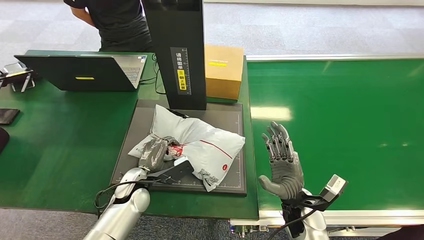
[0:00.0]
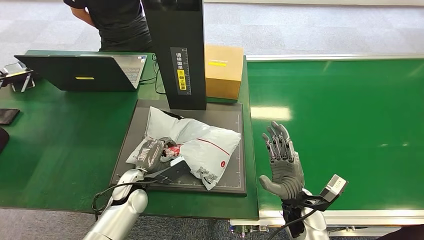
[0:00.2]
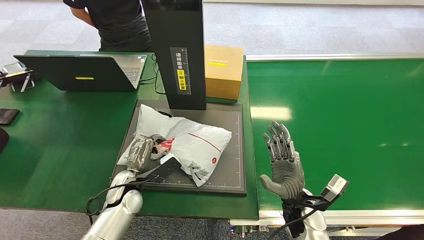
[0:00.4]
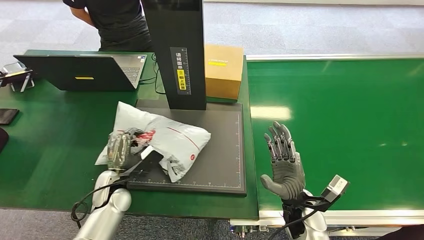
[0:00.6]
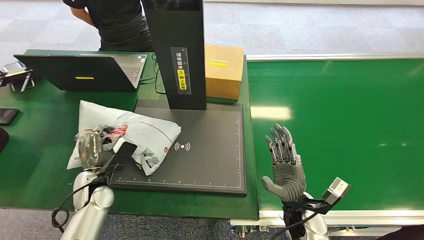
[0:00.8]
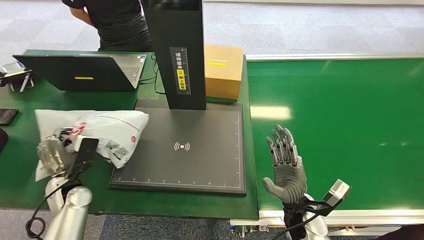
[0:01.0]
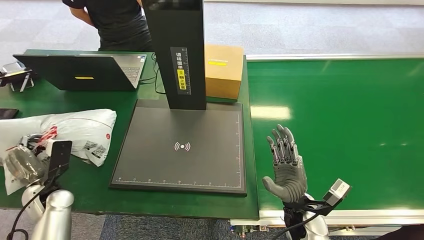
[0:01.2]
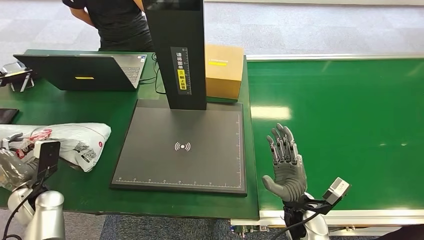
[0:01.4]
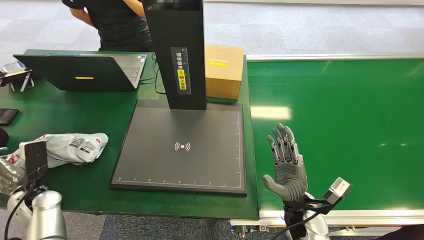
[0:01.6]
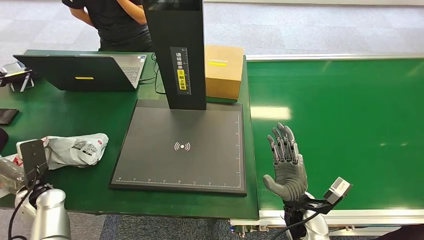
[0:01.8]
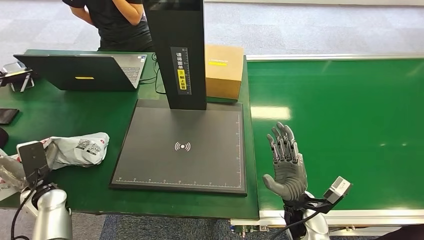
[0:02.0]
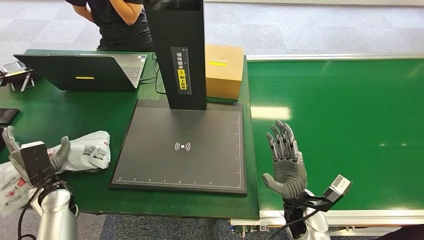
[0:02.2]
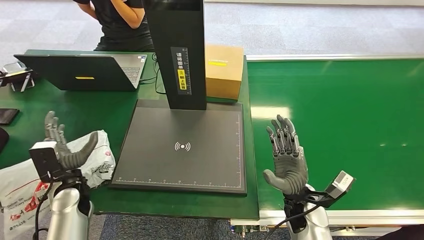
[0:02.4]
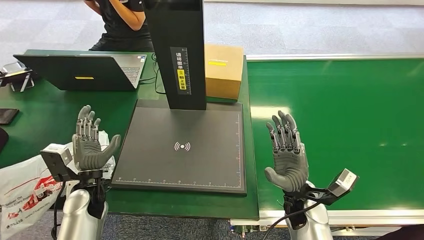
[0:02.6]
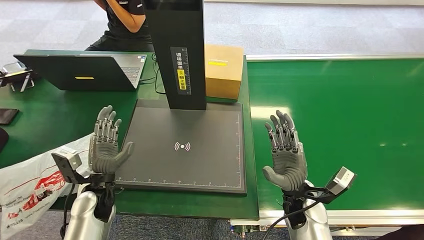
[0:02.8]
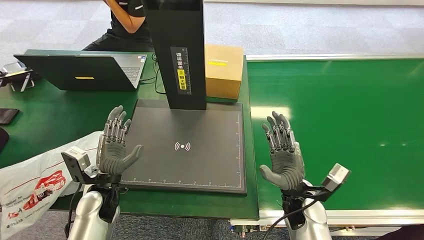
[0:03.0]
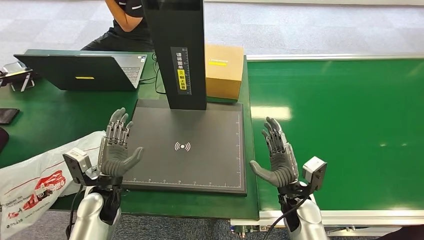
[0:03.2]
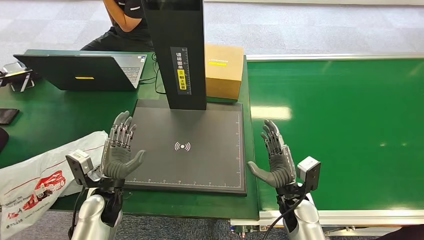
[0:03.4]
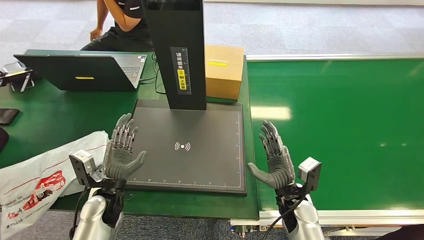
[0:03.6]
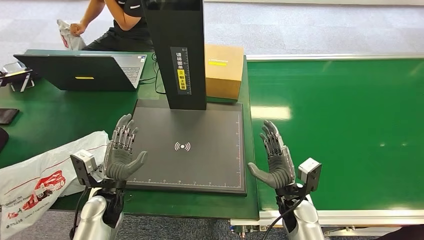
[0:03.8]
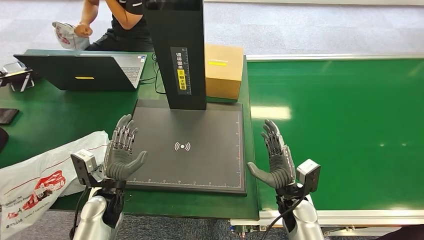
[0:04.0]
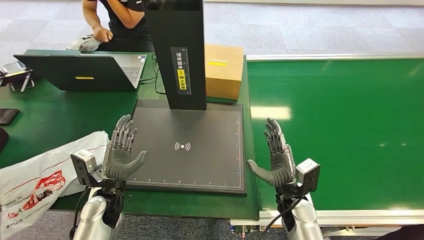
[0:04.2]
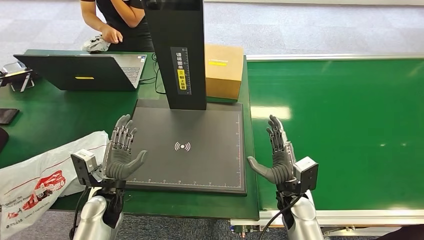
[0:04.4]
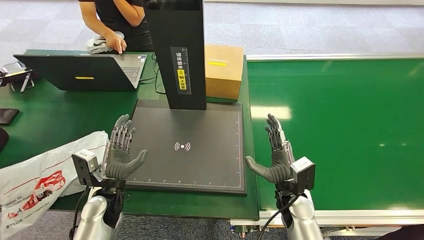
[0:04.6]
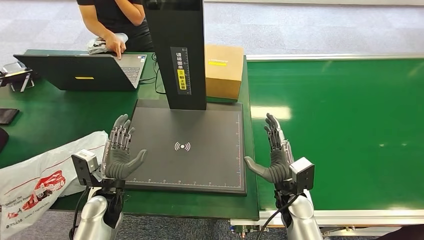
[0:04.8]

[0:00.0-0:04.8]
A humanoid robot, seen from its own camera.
Step, 0:00.8 to 0:04.8: Place the package into the parcel locker.
0:00.0 to 0:01.6: The left hand shifts roughly 25 cm to the left.
0:01.6 to 0:03.2: The left hand heads to the right, covering roughly 20 cm.
0:03.2 to 0:04.8: The hands make only small movements.
